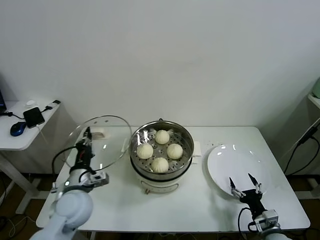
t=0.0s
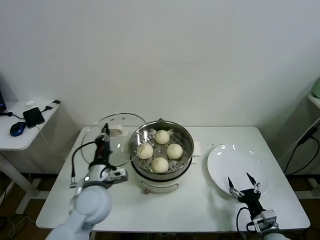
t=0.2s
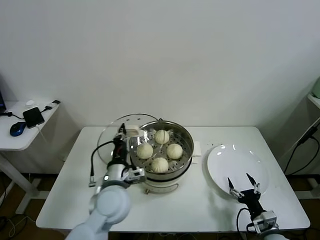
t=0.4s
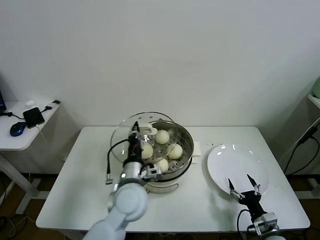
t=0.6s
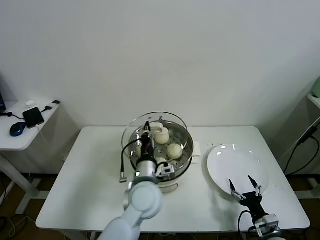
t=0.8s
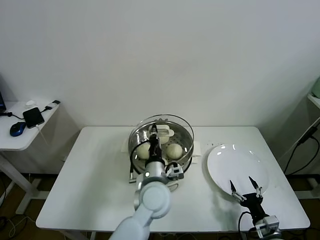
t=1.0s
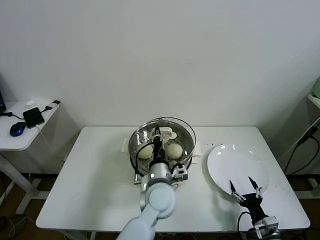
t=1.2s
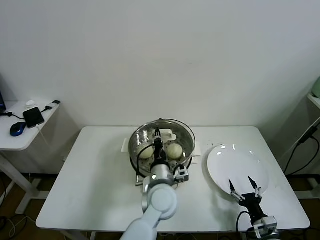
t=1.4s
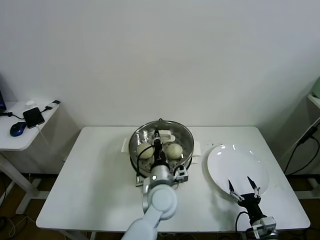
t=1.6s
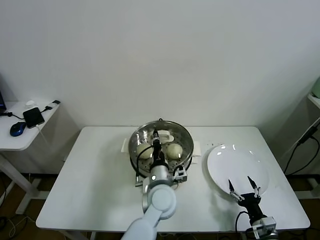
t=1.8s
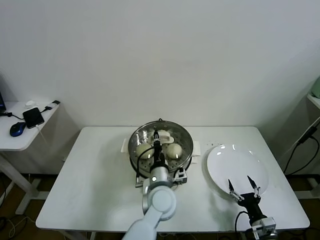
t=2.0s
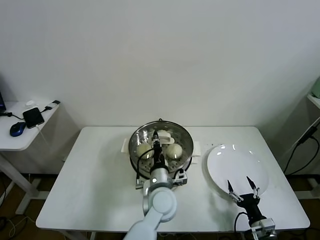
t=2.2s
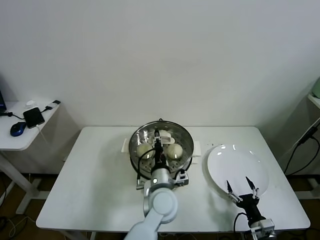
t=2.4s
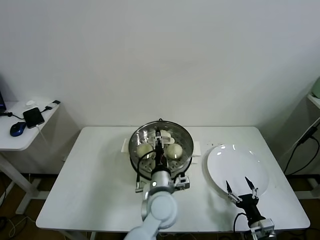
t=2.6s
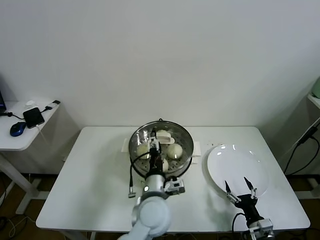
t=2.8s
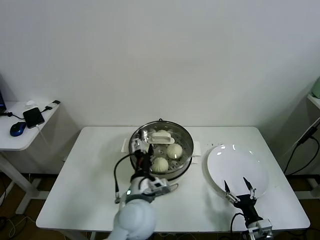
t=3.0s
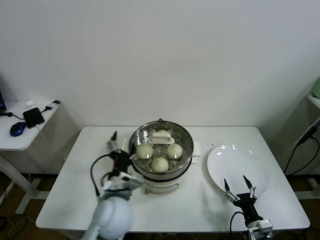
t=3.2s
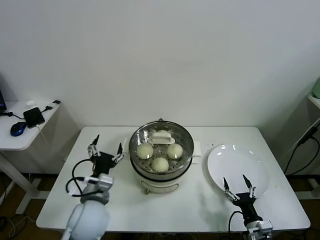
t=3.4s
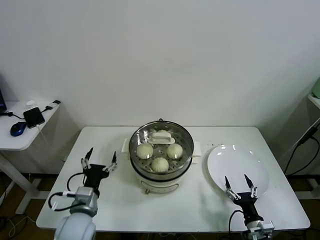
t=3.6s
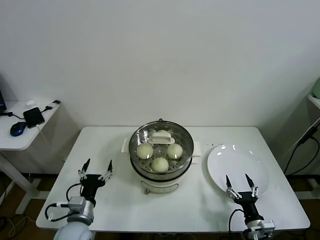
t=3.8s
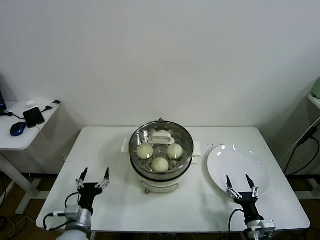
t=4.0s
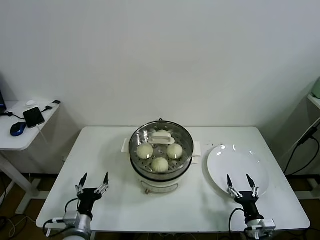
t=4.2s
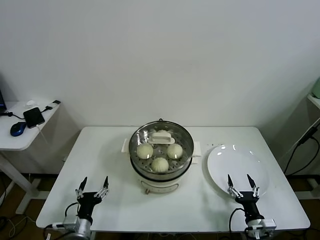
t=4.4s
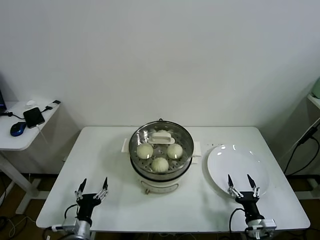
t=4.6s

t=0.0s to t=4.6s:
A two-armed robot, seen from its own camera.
Task of the whole recording: take steamed baozi put them in steamer.
Step, t=0.0s to t=2.4s: Place the pot lid on the steamer with left gripper.
t=0.0s to t=1.6s: The left gripper goes some 25 cm to the right.
t=1.6s to t=3.0s: The left gripper moves to the left and backward, roughly 10 cm, and opens up.
t=3.0s to t=4.6s: The left gripper heads to the left and downward, covering about 30 cm.

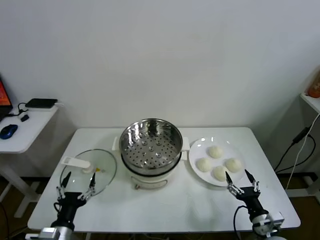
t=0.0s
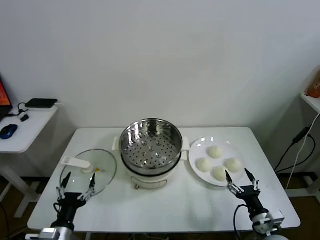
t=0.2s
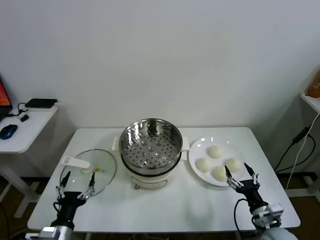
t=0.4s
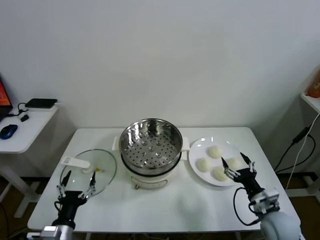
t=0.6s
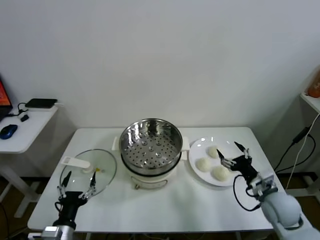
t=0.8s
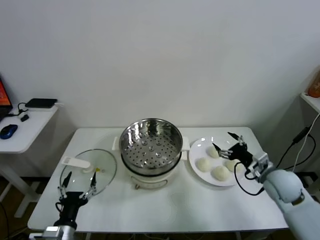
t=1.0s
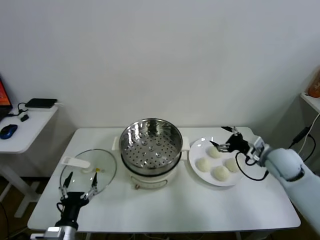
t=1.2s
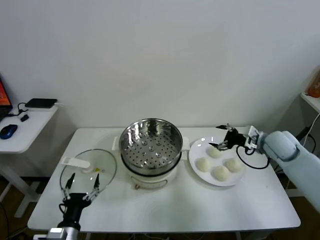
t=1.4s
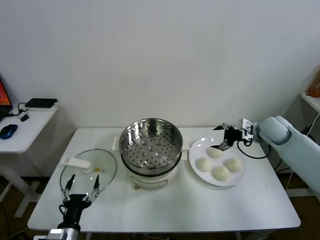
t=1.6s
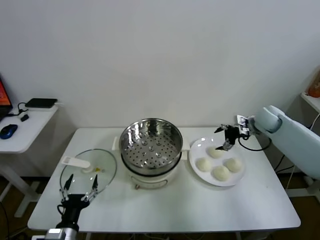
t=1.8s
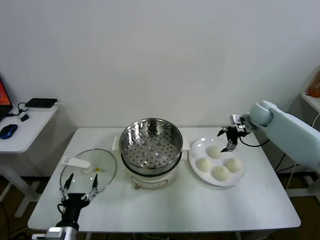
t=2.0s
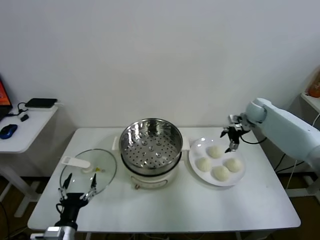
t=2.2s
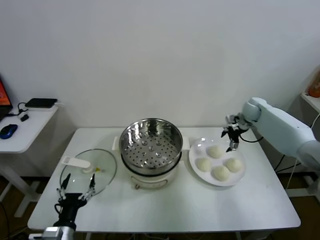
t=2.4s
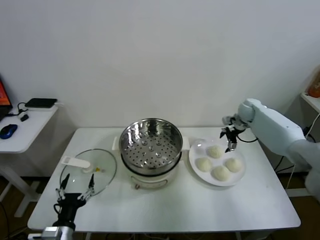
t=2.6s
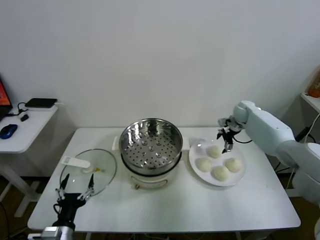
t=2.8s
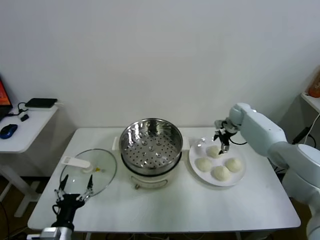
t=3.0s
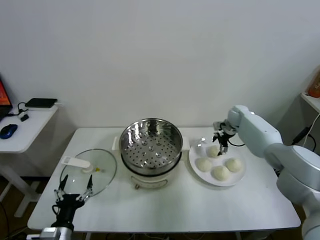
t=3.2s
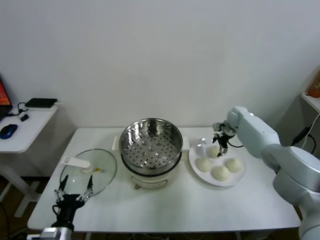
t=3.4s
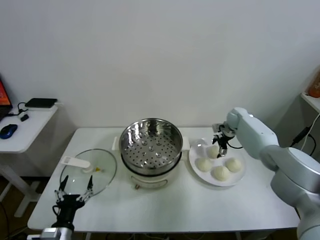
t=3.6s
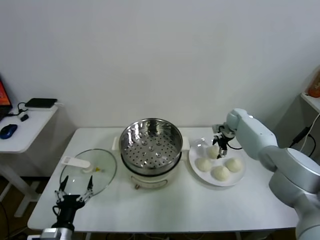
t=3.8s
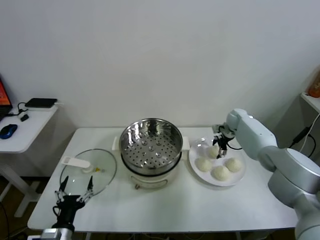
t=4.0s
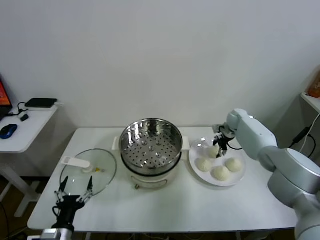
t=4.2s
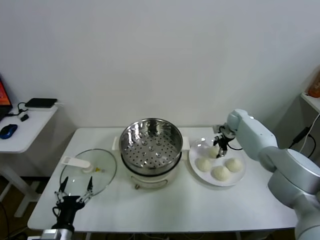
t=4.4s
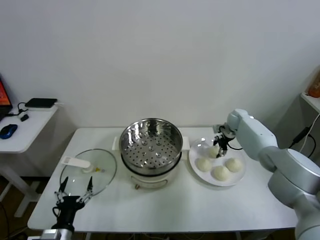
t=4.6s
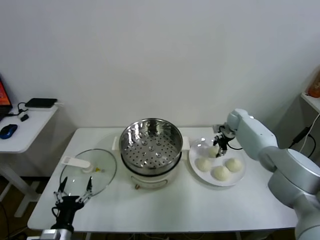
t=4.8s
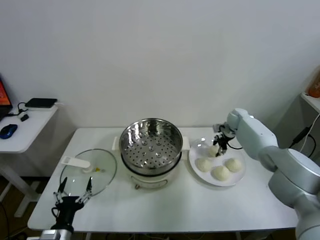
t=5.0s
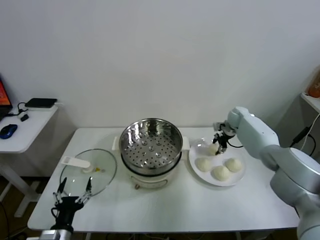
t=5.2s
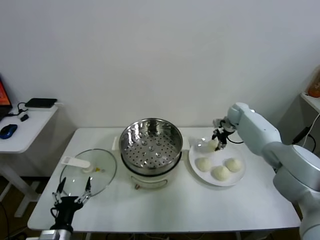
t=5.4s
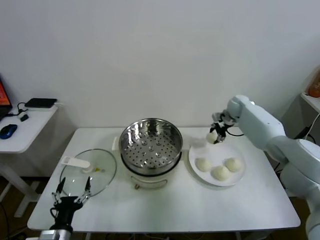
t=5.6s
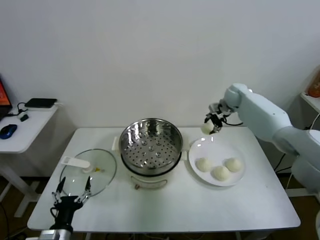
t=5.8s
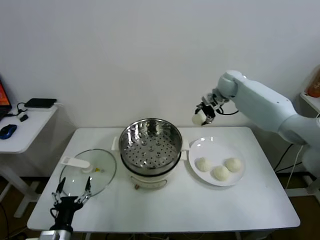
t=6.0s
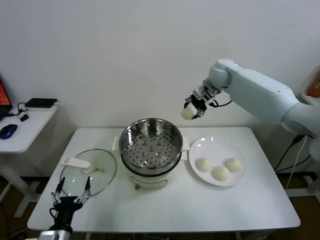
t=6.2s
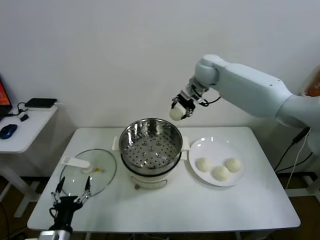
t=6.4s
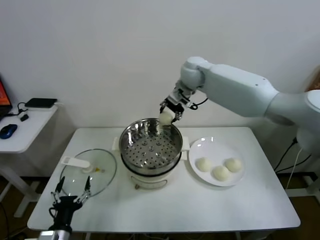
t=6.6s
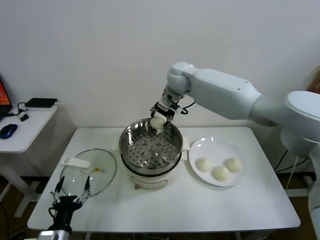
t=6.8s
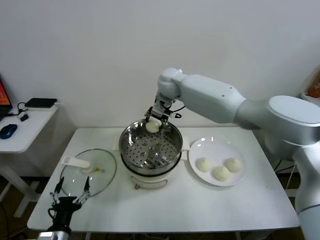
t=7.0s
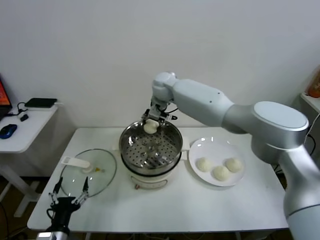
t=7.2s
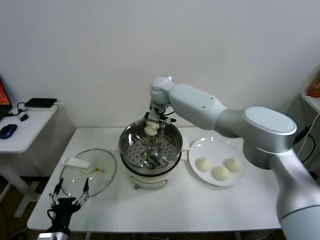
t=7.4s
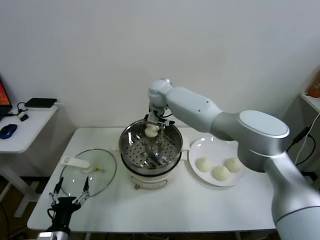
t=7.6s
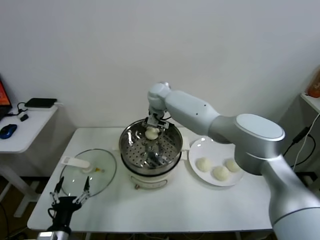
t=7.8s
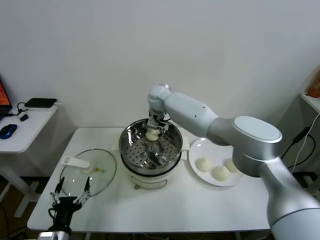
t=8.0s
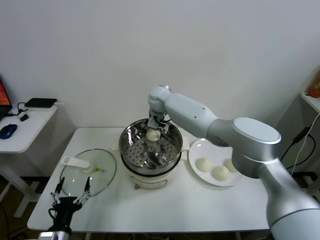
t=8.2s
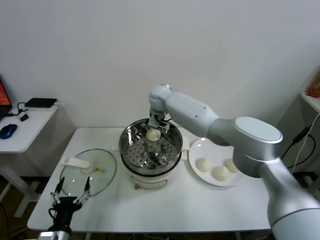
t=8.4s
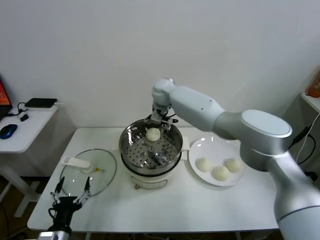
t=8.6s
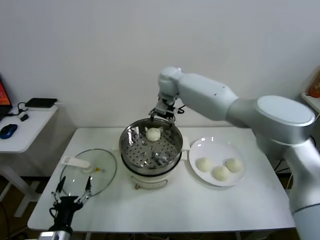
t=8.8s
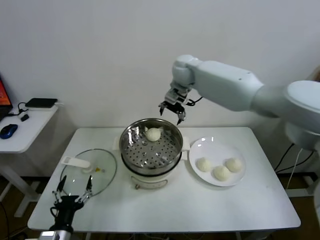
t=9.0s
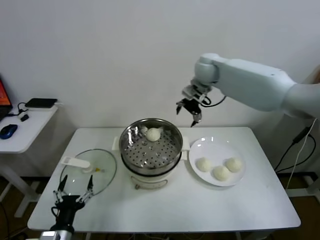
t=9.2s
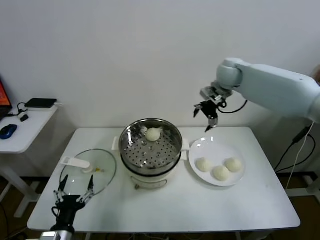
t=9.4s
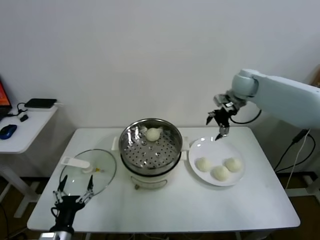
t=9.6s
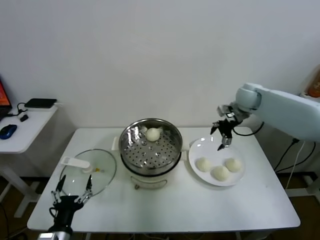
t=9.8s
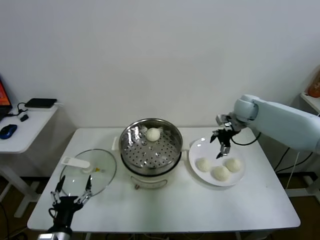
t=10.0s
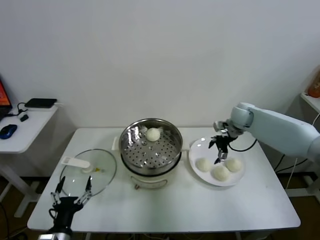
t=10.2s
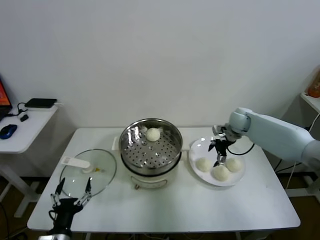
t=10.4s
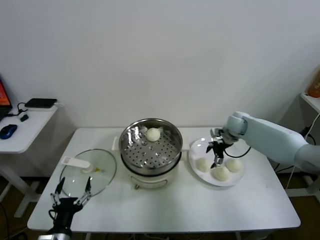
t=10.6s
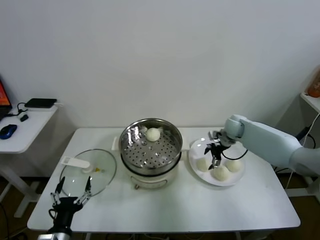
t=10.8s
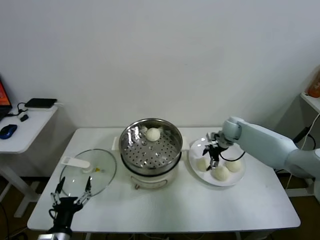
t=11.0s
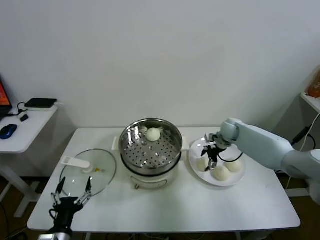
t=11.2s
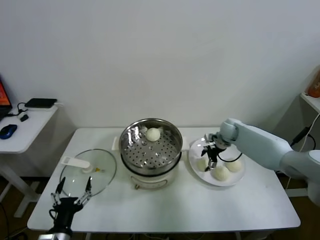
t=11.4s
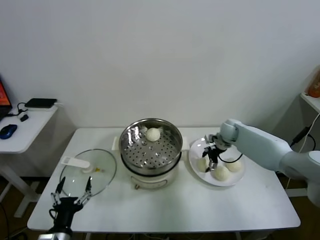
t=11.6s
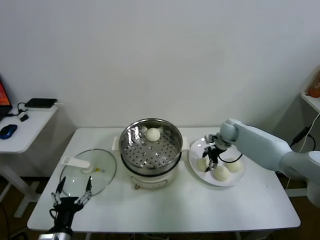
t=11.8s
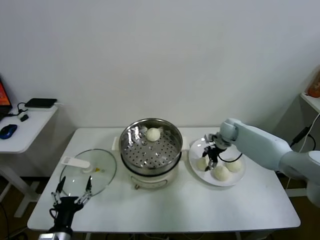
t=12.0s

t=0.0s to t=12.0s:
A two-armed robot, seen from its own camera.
Task of the whole recording: take steamed baozi put them in steamer.
Step, t=0.0s to t=4.4s: Grasp the baozi in the plate with right gripper.
Step, t=4.6s to t=8.2s: Place the baozi on the steamer with right gripper.
Step, t=8.4s to t=12.0s: Grasp the baozi in the plate with right gripper.
t=1.6s to t=3.0s: The right gripper shifts some 15 cm forward, downward and to the left.
t=3.0s to t=4.4s: The right gripper closes its fingers.
t=4.4s to t=6.0s: The right gripper heads upward and to the left, covering roughly 25 cm.
t=6.0s to t=7.6s: The right gripper heads to the left, covering some 25 cm.
t=7.6s to t=9.0s: The right gripper shifts approximately 15 cm to the right and upward, and opens its fingers.
t=9.0s to t=10.4s: The right gripper is displaced downward and to the right by some 30 cm.
t=10.4s to t=12.0s: The right gripper shifts about 5 cm downward, and closes.

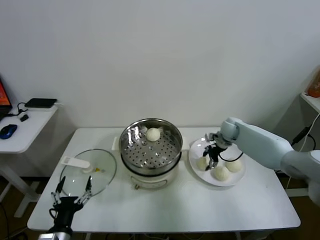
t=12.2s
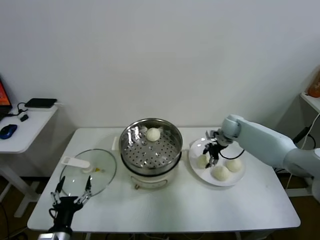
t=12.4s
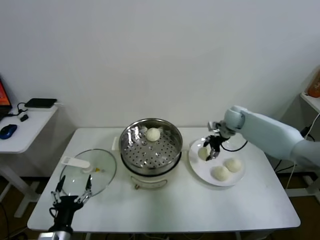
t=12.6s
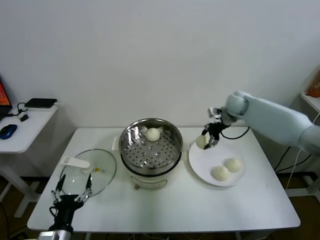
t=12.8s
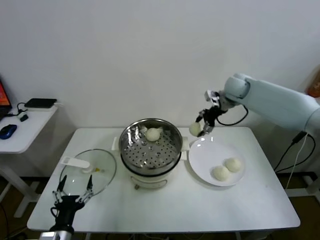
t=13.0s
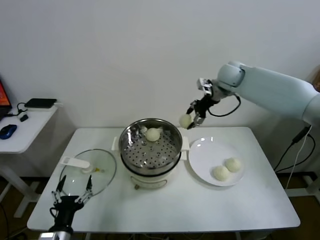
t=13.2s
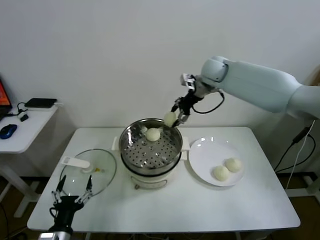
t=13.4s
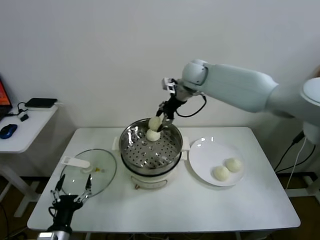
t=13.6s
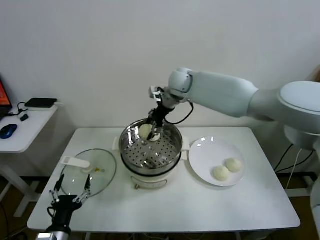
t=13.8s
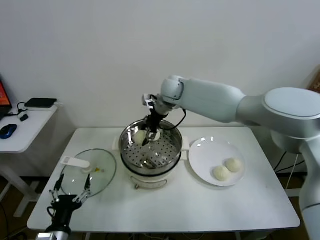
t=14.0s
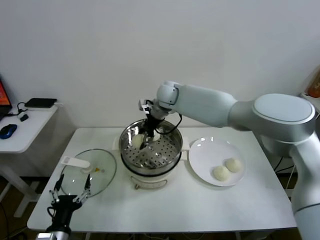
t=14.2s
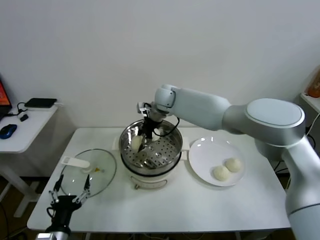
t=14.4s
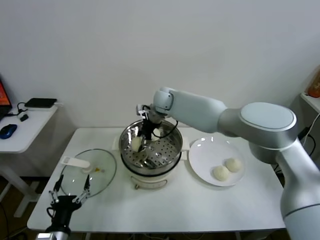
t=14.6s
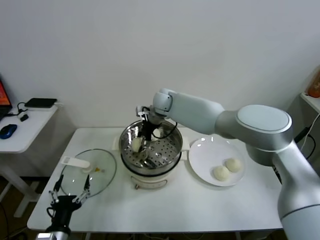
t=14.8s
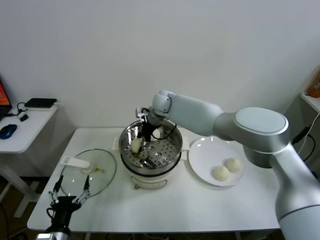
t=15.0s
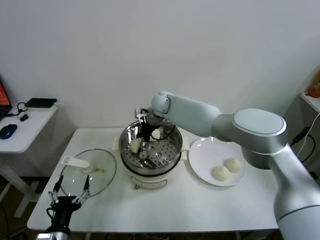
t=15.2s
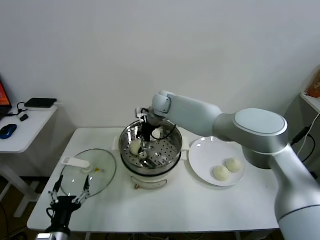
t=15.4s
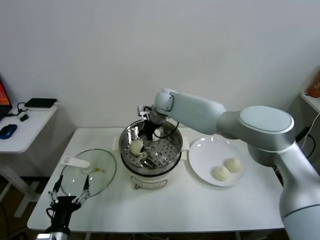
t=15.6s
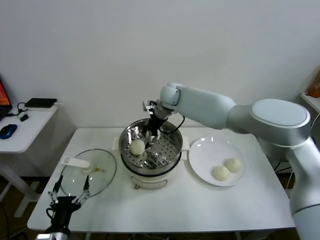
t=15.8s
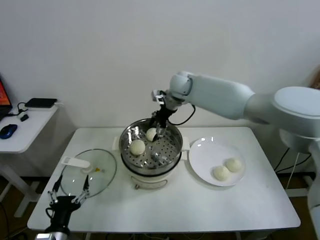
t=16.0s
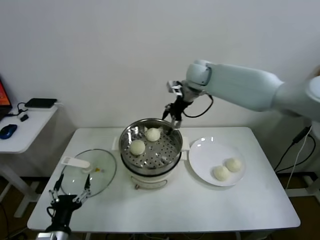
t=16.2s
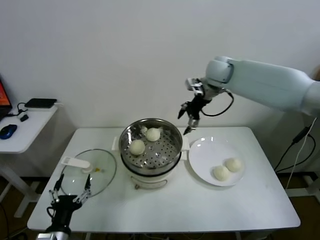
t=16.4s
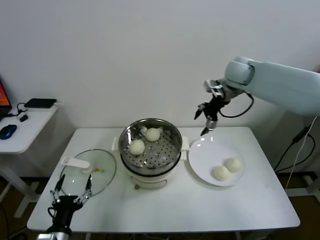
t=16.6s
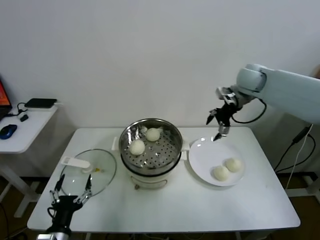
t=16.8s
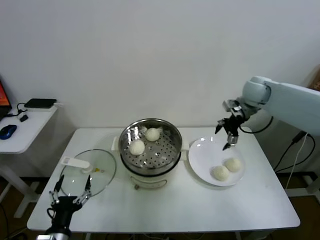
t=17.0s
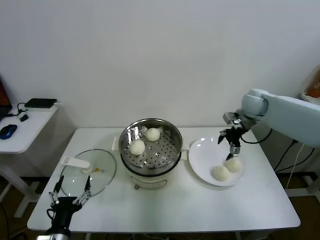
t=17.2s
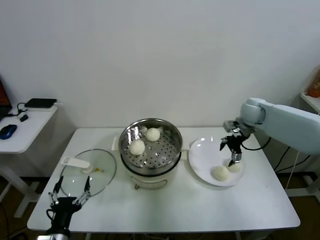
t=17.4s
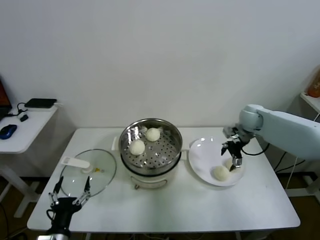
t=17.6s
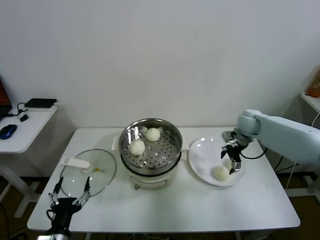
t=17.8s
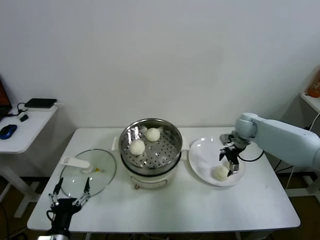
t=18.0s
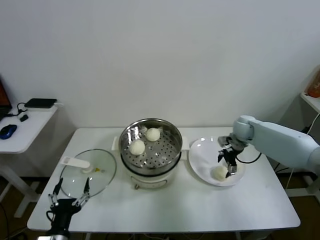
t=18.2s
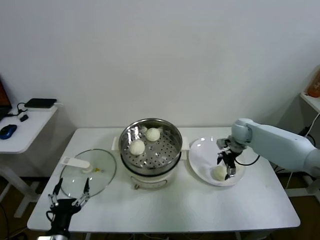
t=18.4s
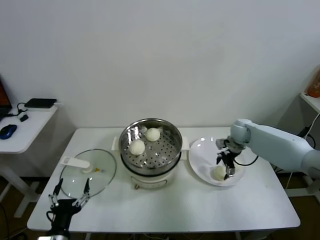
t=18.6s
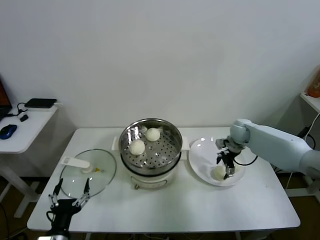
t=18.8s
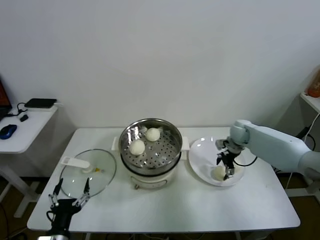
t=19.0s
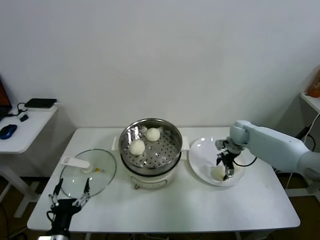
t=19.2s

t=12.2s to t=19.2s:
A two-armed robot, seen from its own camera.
Task of the whole recording: take steamed baozi put them in steamer.
Step, t=12.2s to t=15.6s: Place the baozi on the steamer with right gripper.
t=12.2s to t=13.6s: The right gripper goes some 30 cm upward and to the left.
t=13.6s to t=15.0s: The right gripper goes some 15 cm downward and to the left.
t=15.0s to t=16.4s: The right gripper travels to the right and upward by some 25 cm, and opens.
t=16.4s to t=17.8s: The right gripper travels downward and to the right by roughly 25 cm.
t=17.8s to t=19.2s: The right gripper moves downward, roughly 5 cm.
